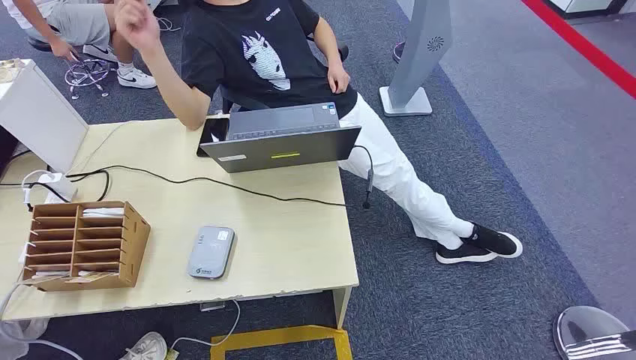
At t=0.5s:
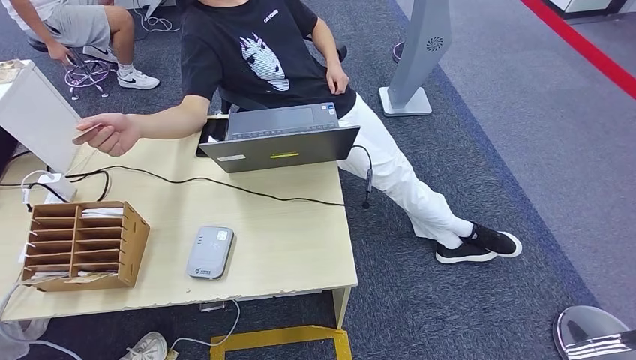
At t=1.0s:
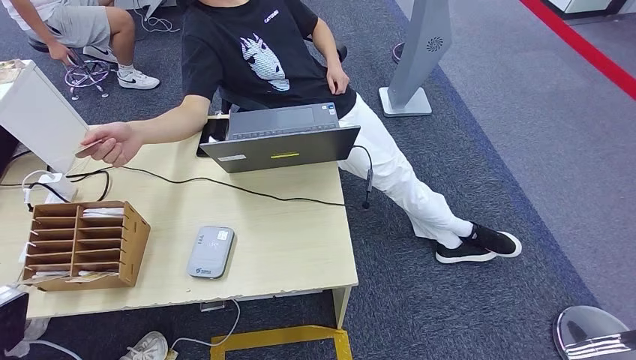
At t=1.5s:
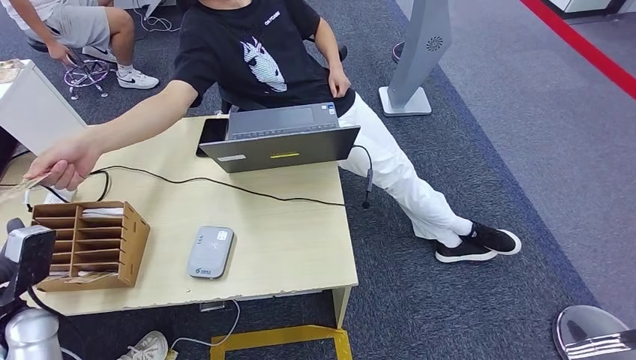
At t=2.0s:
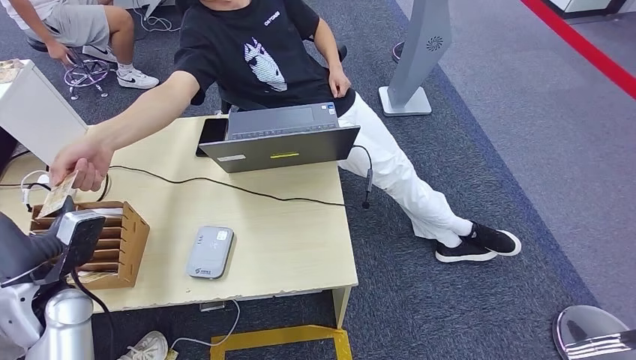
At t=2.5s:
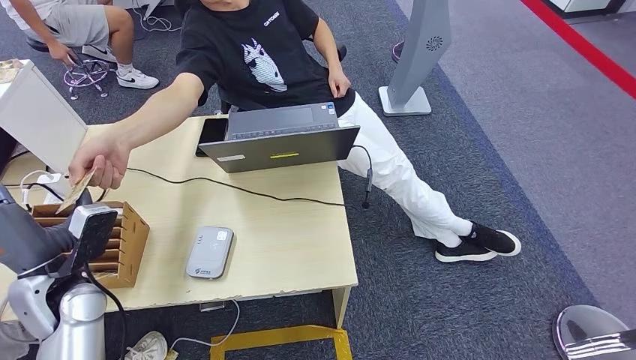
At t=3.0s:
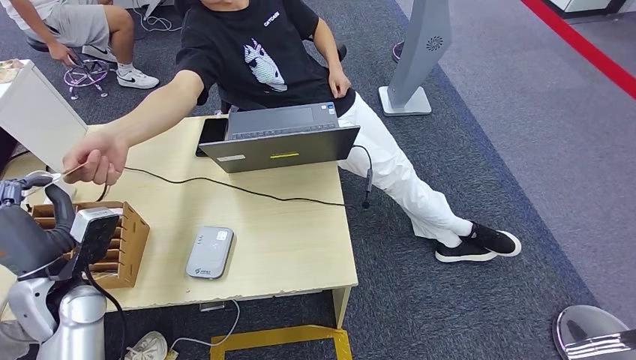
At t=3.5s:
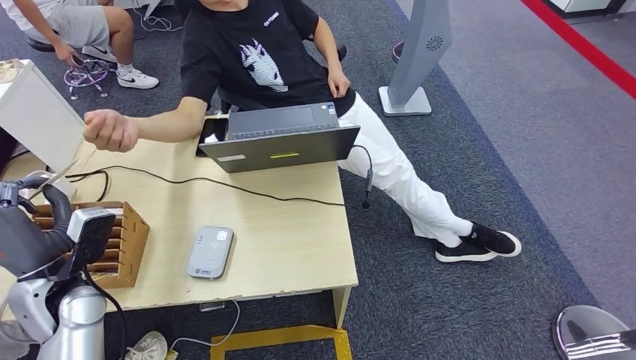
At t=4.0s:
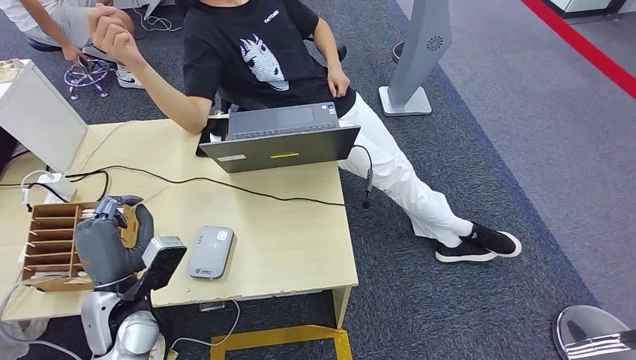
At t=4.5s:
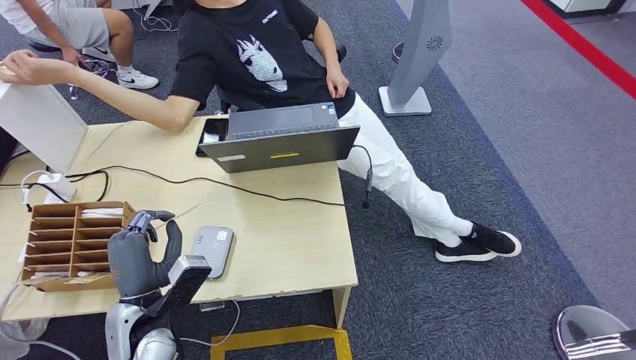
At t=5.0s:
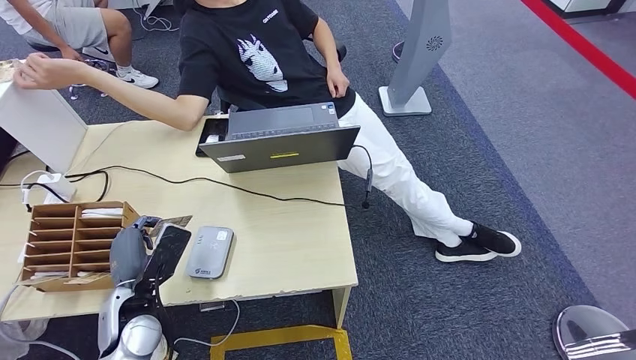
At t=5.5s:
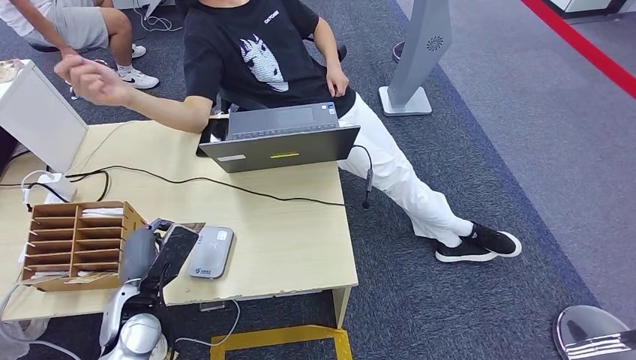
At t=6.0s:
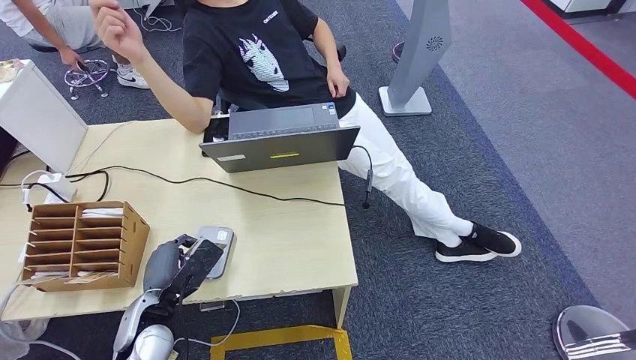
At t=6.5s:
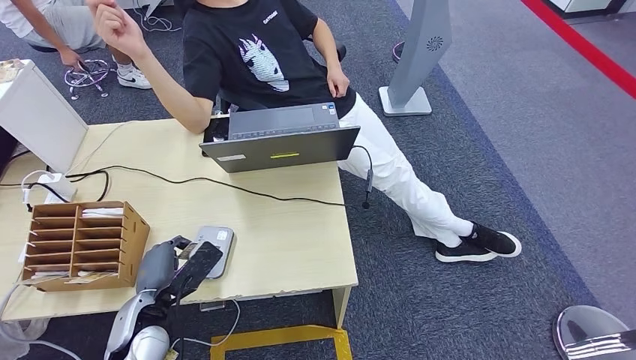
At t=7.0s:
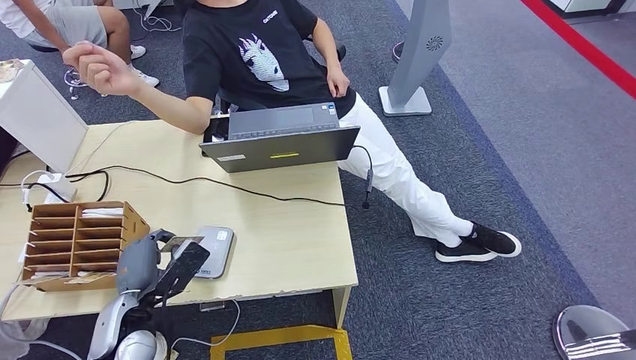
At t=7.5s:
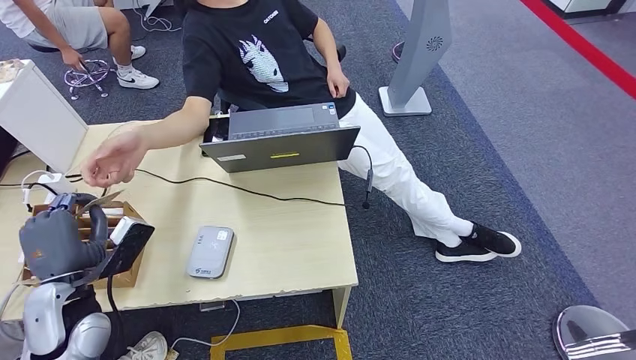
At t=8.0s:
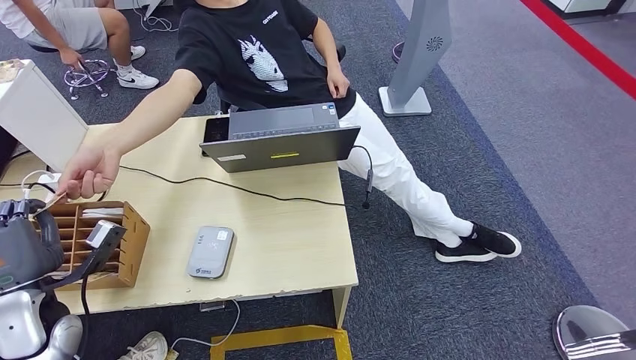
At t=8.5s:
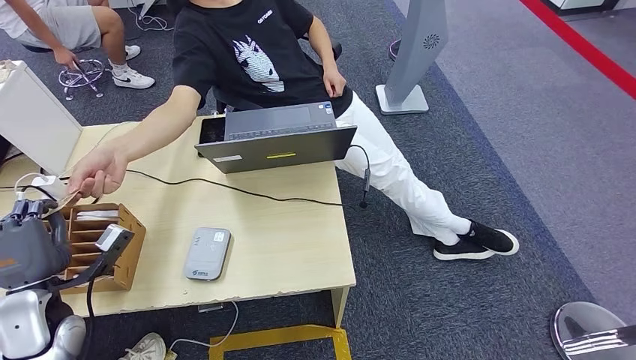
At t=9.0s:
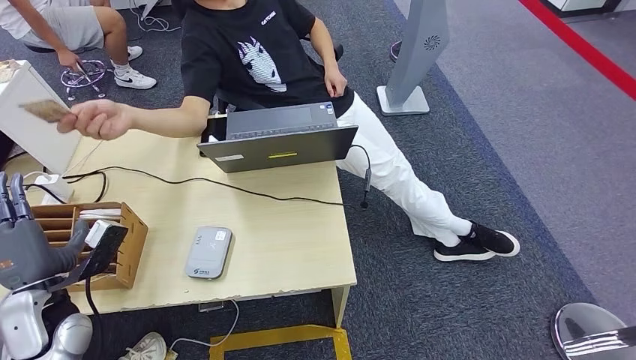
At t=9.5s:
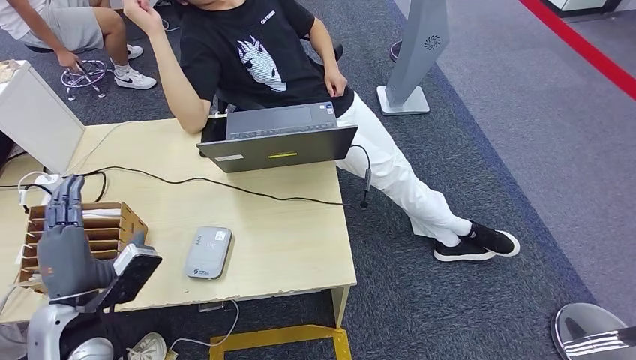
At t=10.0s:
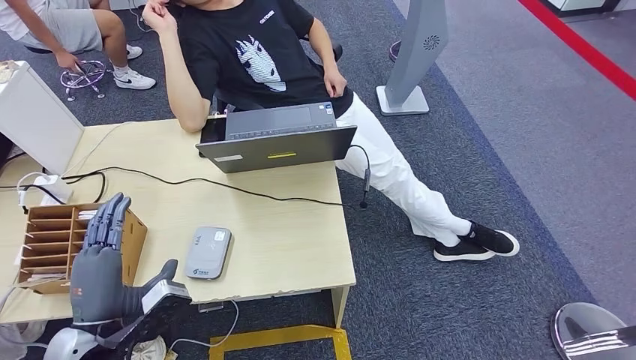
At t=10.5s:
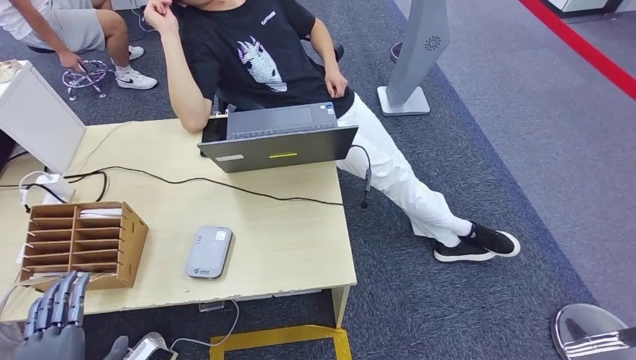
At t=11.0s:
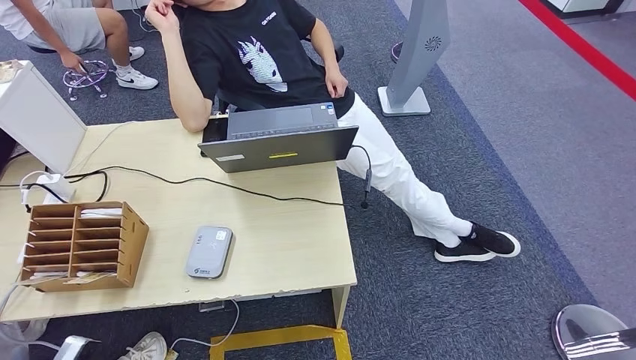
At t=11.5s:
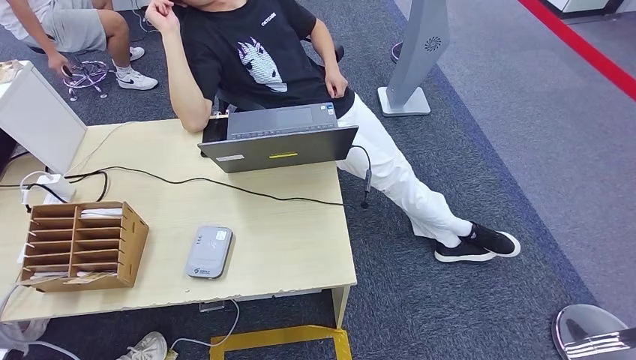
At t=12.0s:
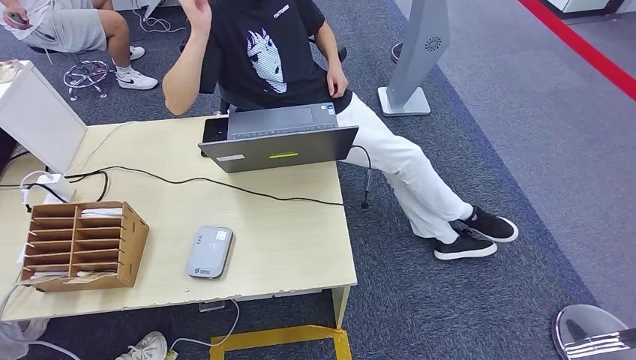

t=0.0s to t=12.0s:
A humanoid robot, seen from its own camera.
Step, t=0.0s to t=3.5s: Take the ID card from the person's hand.
Step, t=4.0s to t=6.5s: Place the ID card on the card reader.
Step, t=7.0s to t=8.5s: Hand the ID card to the person.
t=2.0s to t=4.0s: The left hand moves to the right, about 10 cm.
t=4.0s to t=6.0s: The left hand is displaced downward by roughly 5 cm.
t=6.0s to t=8.0s: The left hand heads to the left, covering approximately 15 cm.
t=10.0s to t=12.0s: The left hand travels to the left and backward by roughly 25 cm.

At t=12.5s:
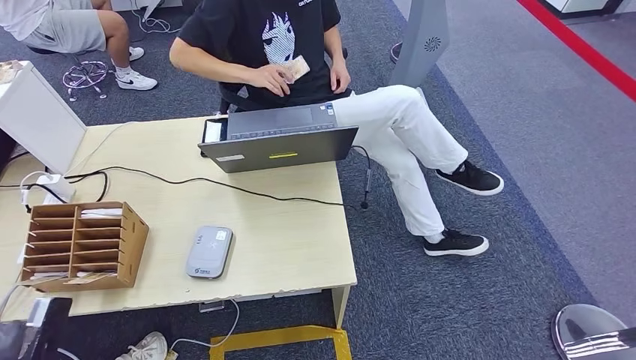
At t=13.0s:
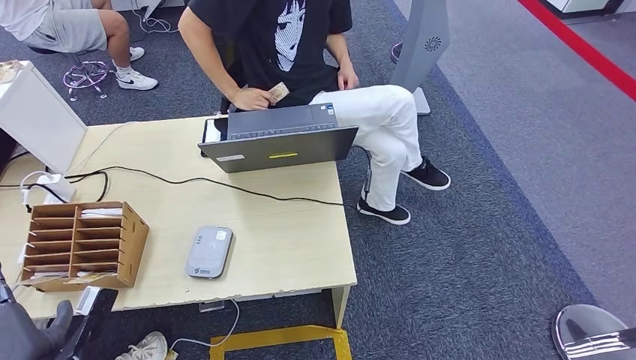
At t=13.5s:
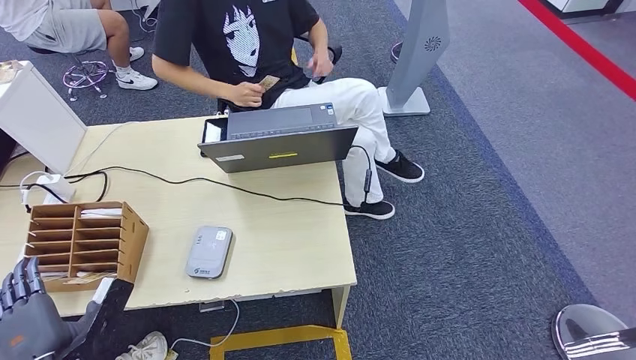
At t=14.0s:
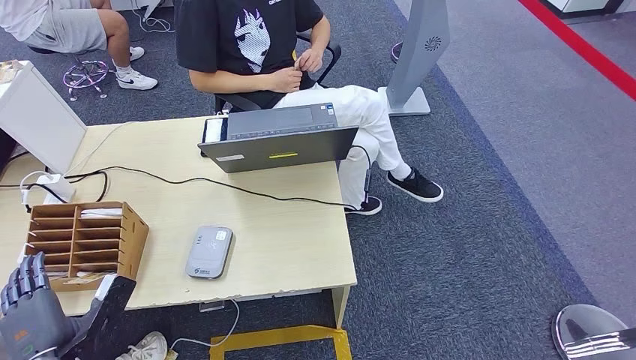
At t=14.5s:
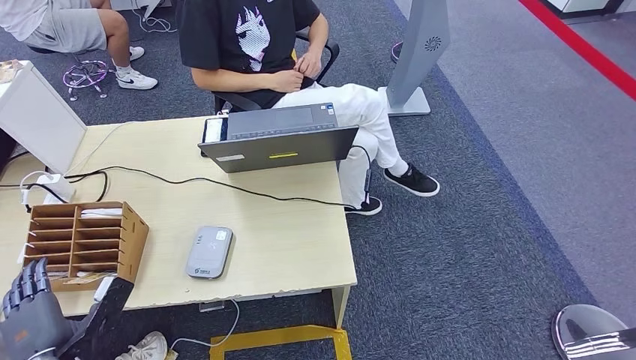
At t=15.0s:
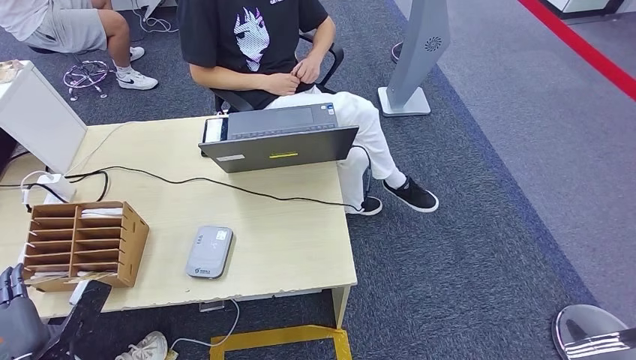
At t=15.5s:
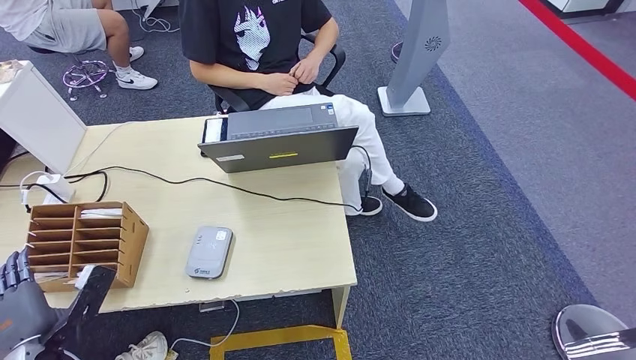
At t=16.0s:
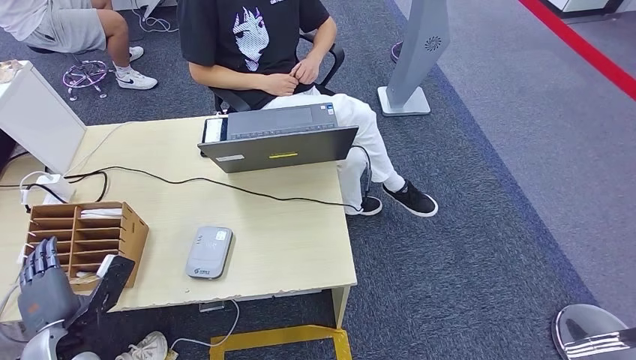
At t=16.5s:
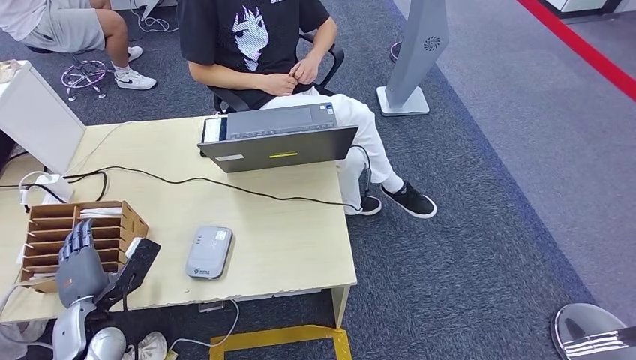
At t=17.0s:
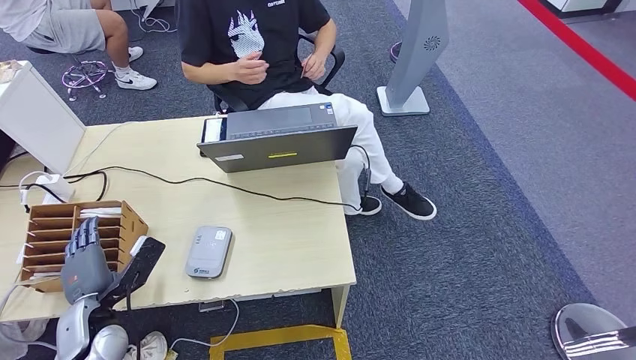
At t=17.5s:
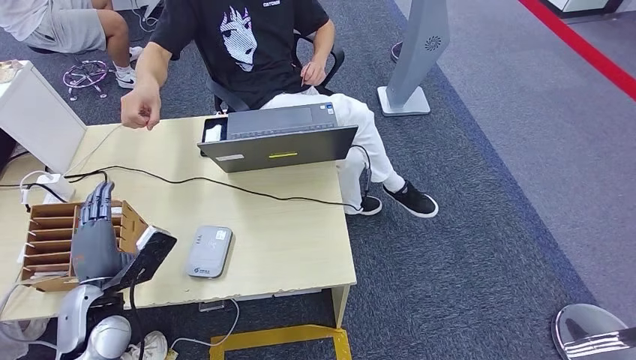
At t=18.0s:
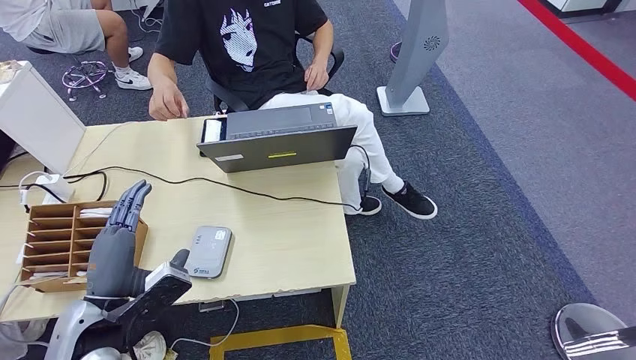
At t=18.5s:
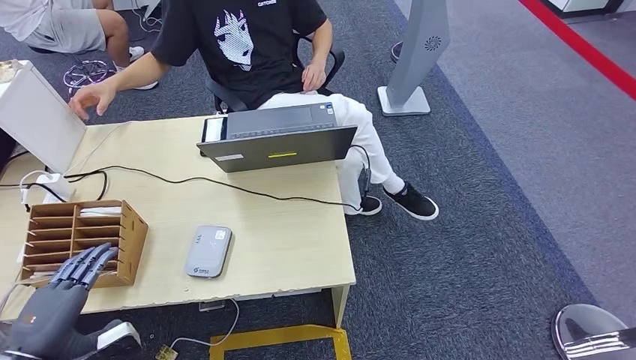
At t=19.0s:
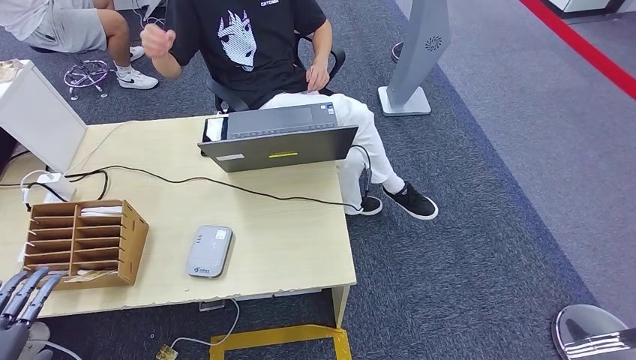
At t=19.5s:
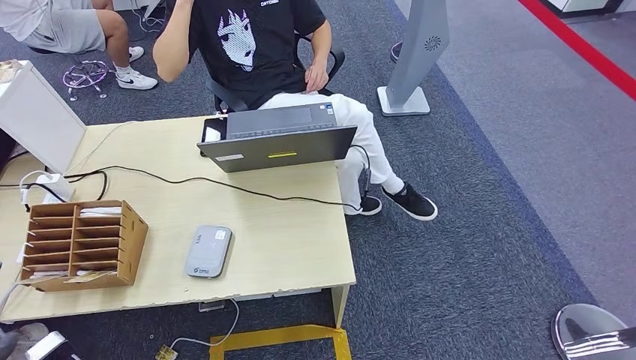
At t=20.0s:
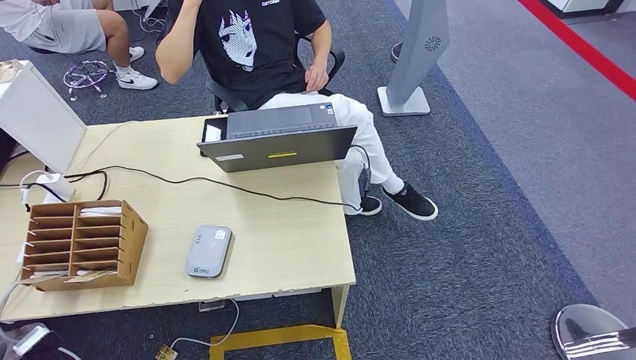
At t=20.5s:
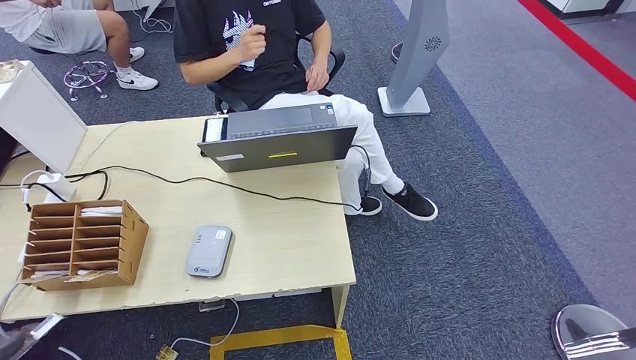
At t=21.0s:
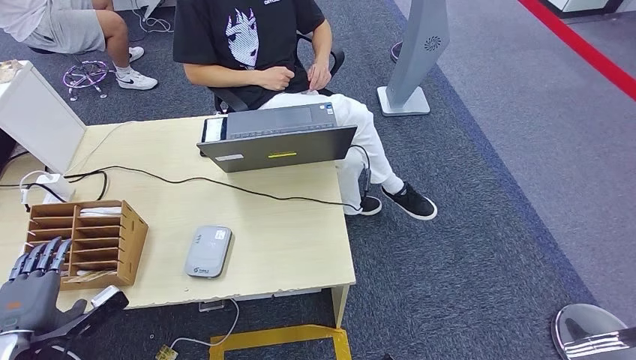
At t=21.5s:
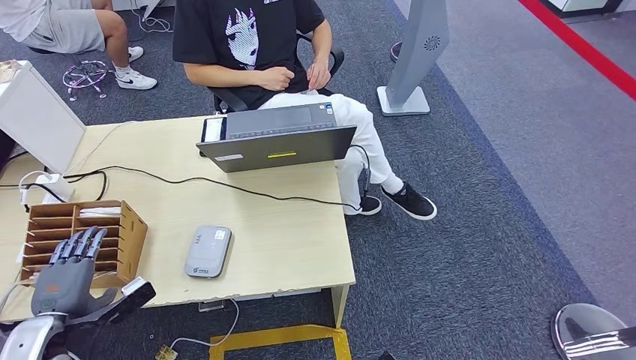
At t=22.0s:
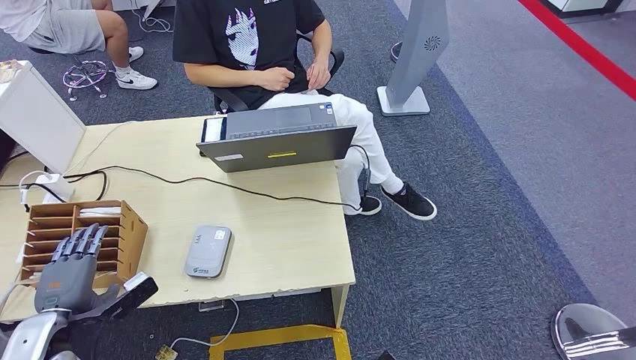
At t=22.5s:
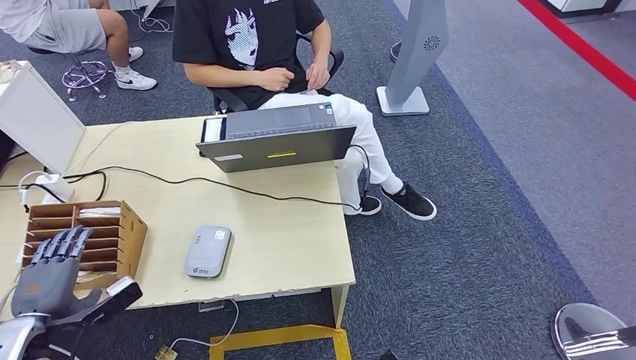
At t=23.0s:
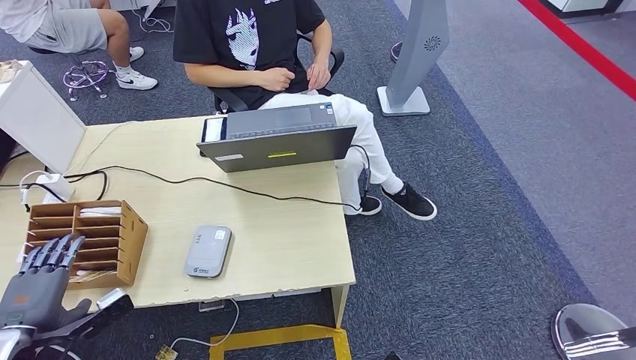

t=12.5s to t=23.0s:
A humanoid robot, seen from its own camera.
t=12.5s to t=14.5s: The left hand heads to the right, covering roughly 5 cm.
t=14.5s to t=16.5s: The left hand travels forward by roughly 10 cm.
t=16.5s to t=19.0s: The left hand moves backward, to the left and upward, approximately 20 cm.
t=19.0s to t=21.0s: The left hand heads forward and downward, covering roughly 15 cm.
t=21.0s to t=23.0s: The hands stay close to where they were, moving slightly.
